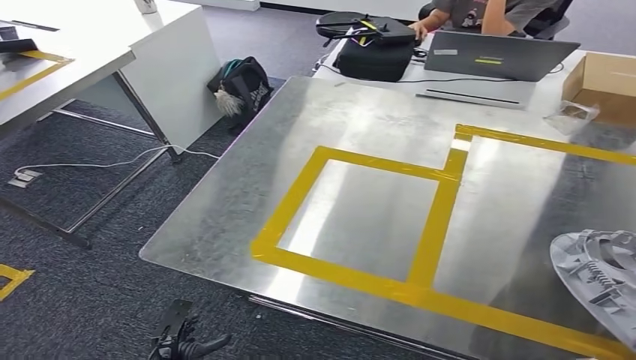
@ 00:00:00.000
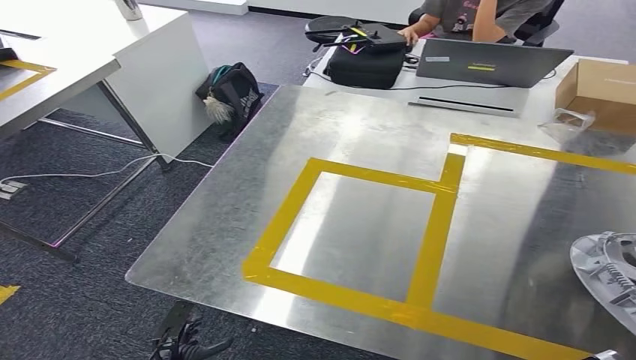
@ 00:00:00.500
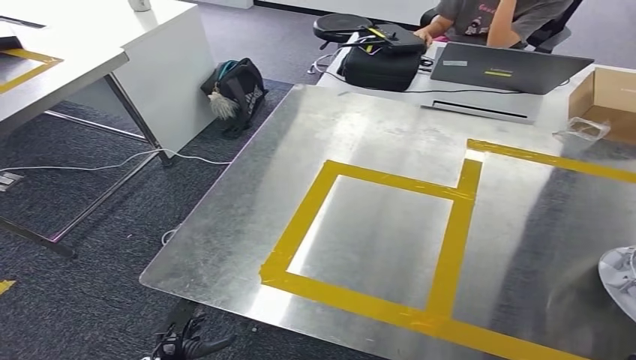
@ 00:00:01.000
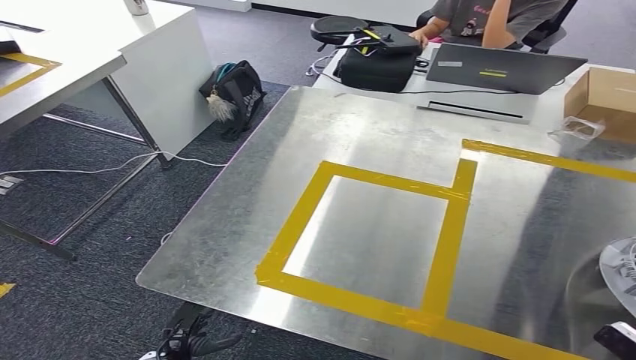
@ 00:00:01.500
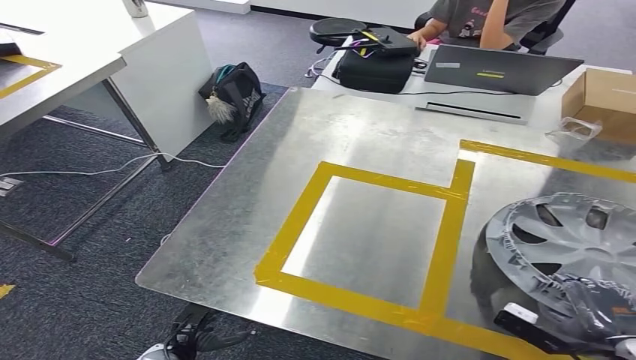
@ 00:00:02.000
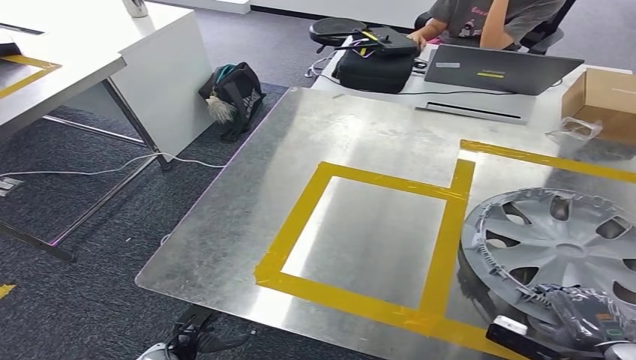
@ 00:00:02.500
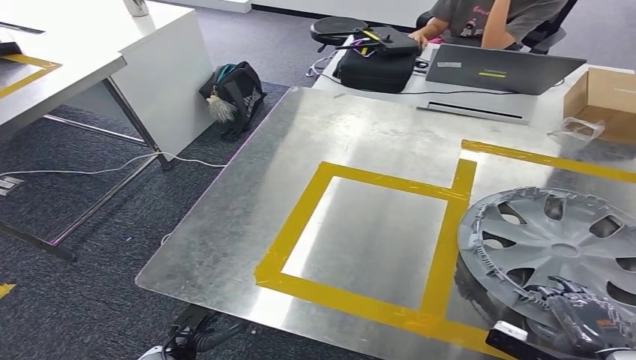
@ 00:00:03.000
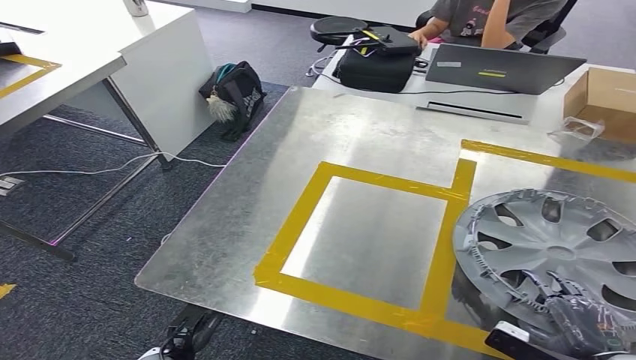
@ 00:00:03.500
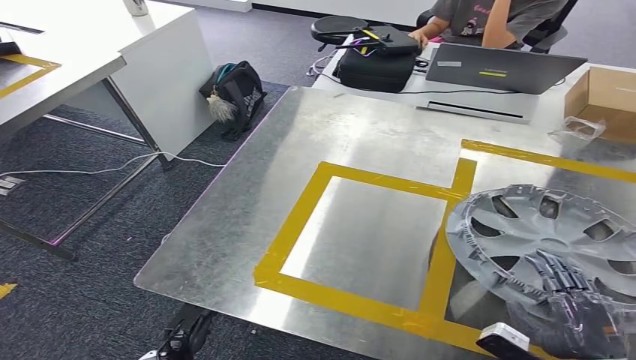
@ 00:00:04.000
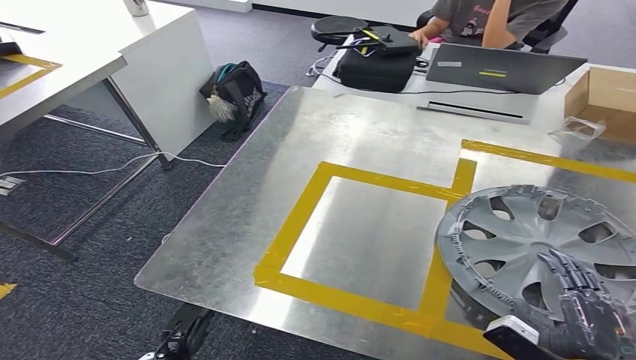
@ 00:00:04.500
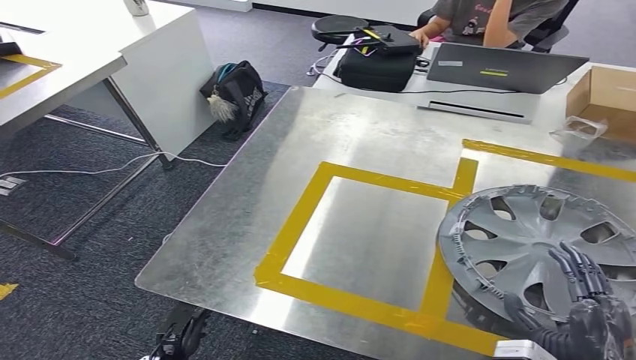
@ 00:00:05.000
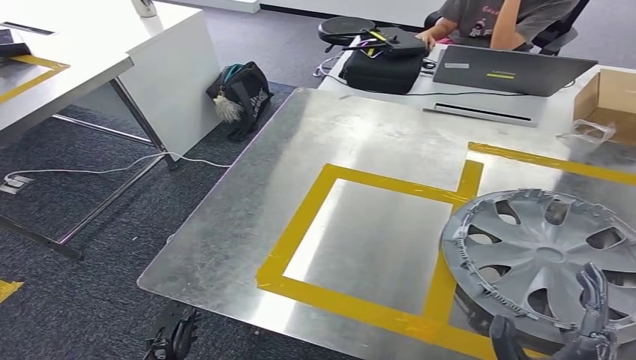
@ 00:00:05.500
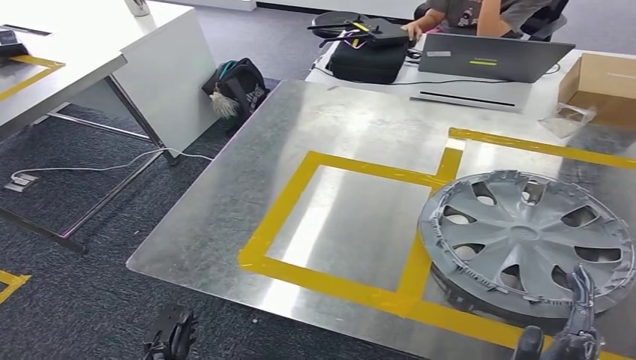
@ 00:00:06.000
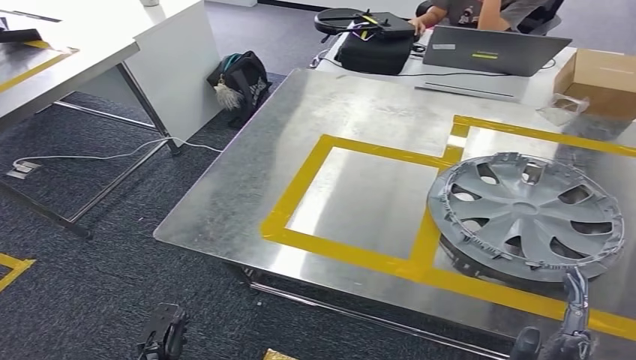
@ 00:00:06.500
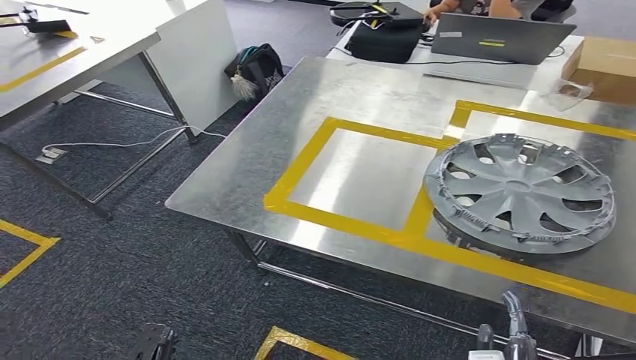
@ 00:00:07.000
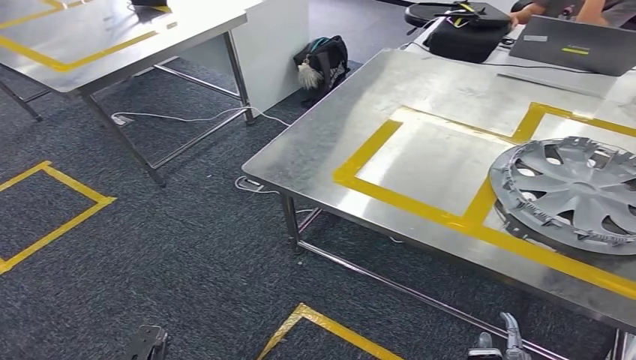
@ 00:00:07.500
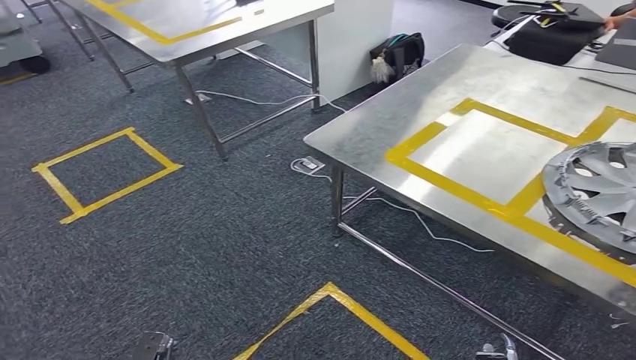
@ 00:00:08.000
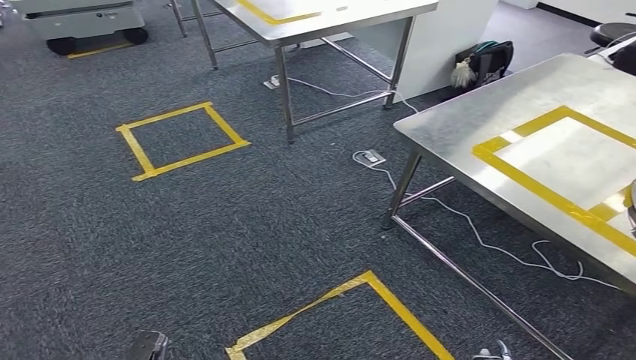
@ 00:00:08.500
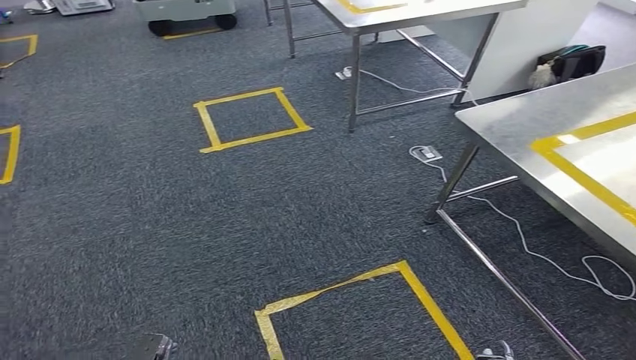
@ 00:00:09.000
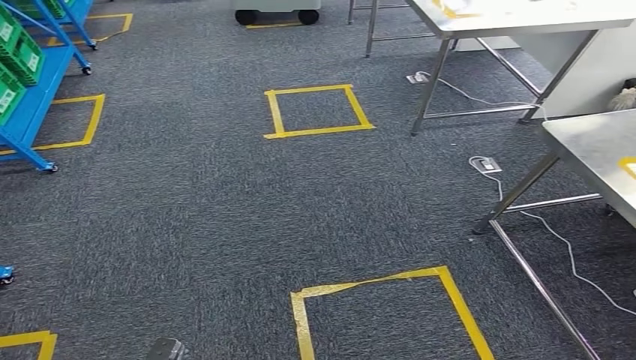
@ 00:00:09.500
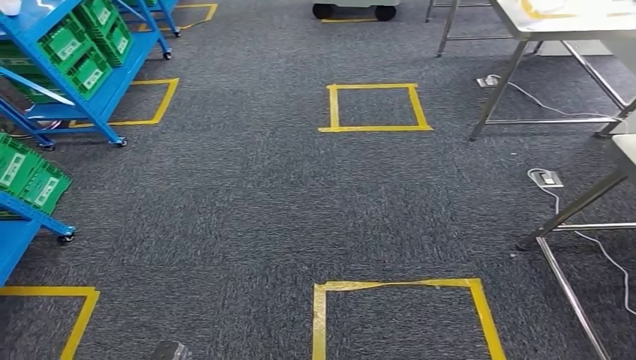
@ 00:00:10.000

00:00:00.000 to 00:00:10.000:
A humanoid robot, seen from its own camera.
Step, 00:00:00.000 to 00:00:06.500: Insert the small component into the corresponding slot on the workbench.
00:00:02.000 to 00:00:04.000: The right hand changes place by about 5 cm.

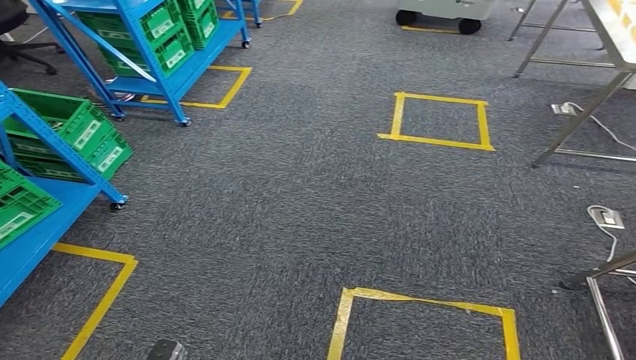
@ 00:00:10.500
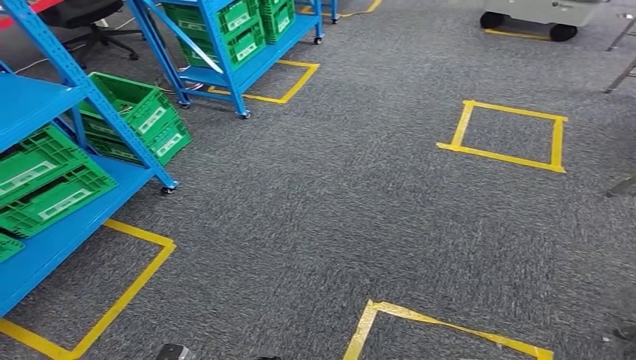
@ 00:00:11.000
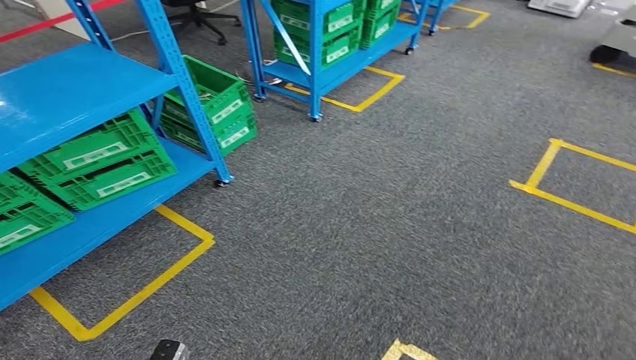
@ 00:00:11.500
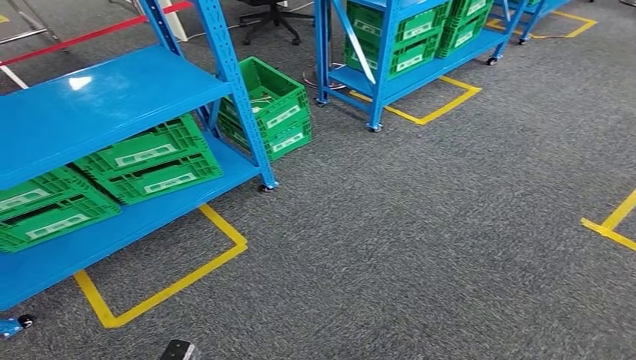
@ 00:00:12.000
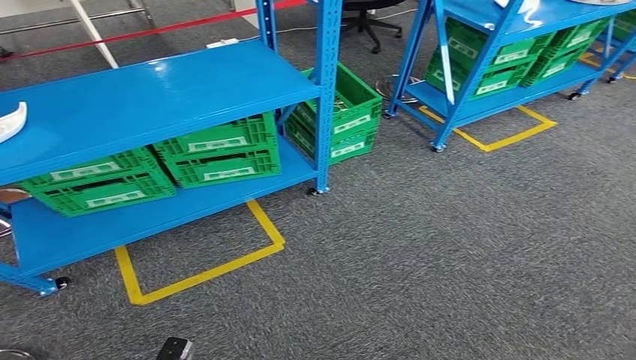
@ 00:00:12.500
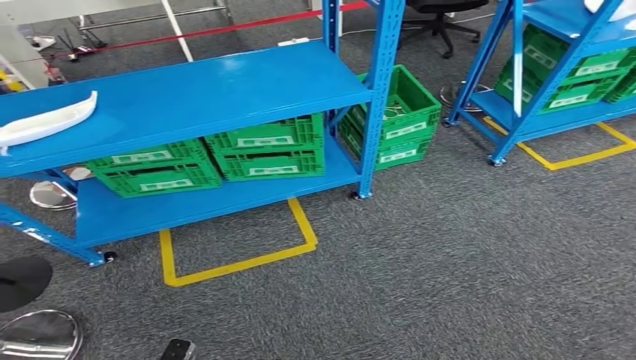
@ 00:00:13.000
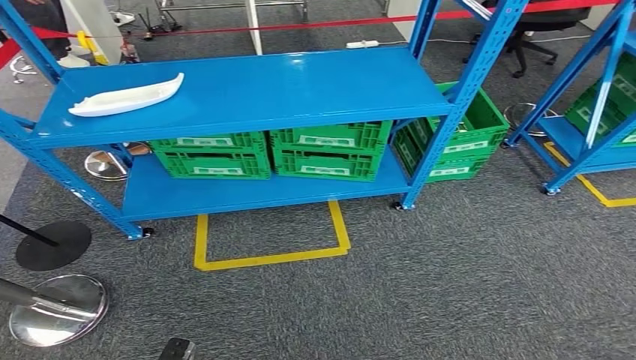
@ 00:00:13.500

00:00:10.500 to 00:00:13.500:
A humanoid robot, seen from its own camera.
Step, 00:00:10.500 to 00:00:13.500: Return to the initial position at the workbench.
